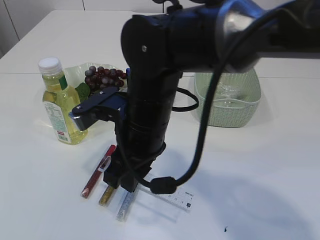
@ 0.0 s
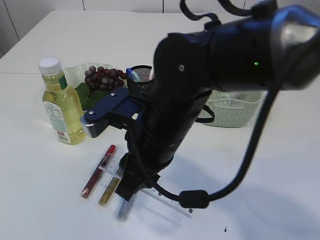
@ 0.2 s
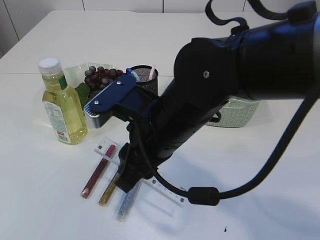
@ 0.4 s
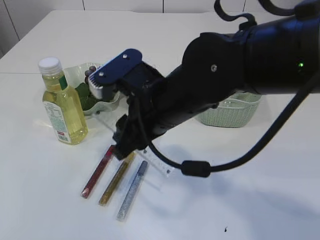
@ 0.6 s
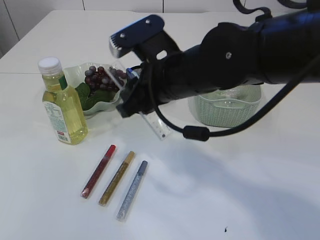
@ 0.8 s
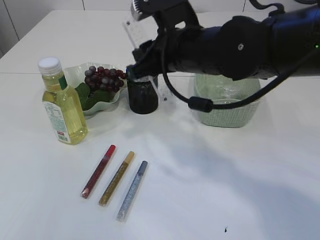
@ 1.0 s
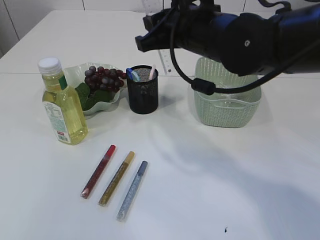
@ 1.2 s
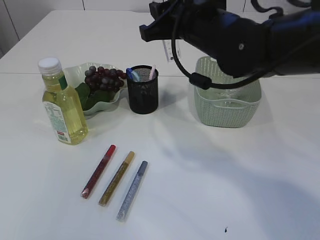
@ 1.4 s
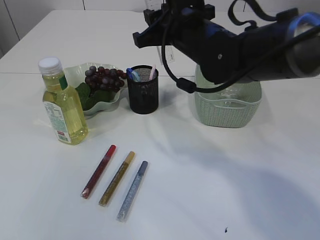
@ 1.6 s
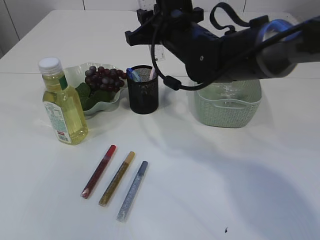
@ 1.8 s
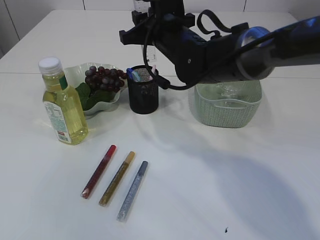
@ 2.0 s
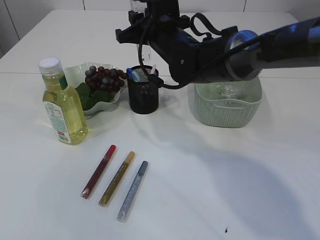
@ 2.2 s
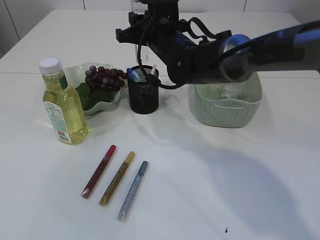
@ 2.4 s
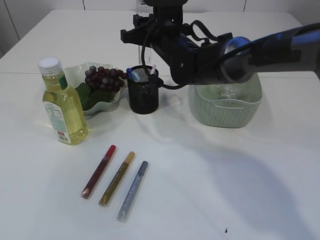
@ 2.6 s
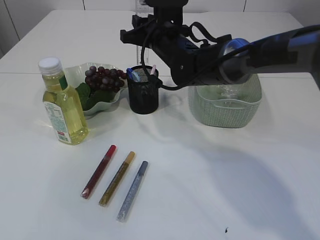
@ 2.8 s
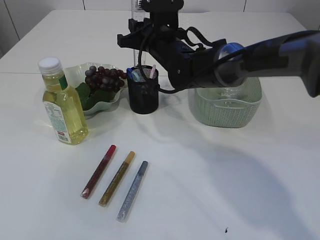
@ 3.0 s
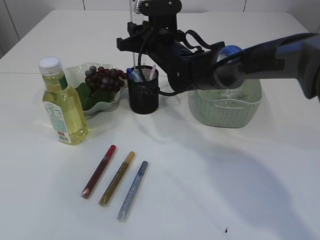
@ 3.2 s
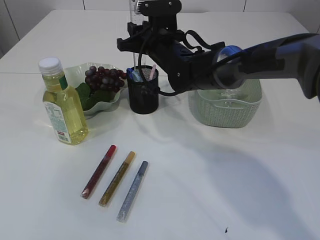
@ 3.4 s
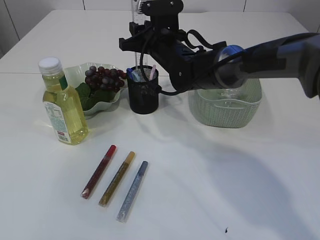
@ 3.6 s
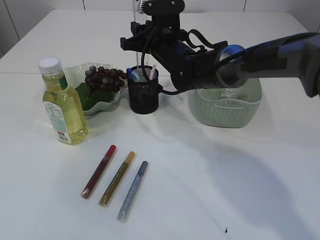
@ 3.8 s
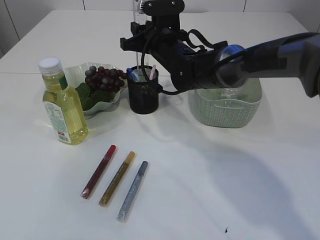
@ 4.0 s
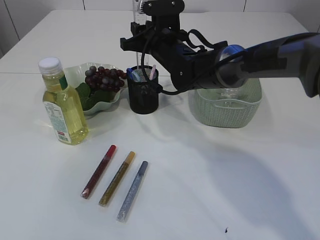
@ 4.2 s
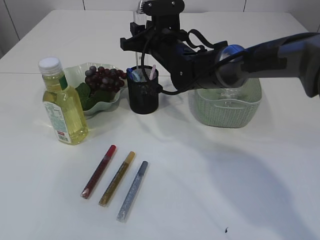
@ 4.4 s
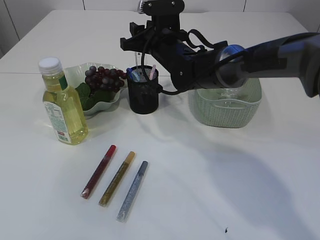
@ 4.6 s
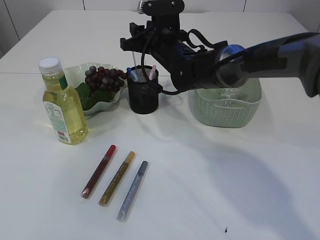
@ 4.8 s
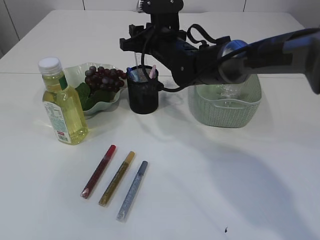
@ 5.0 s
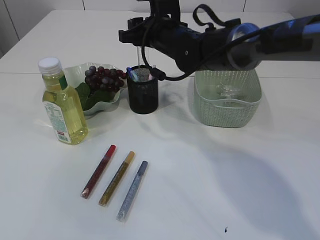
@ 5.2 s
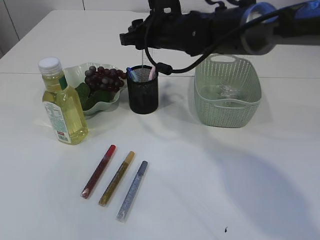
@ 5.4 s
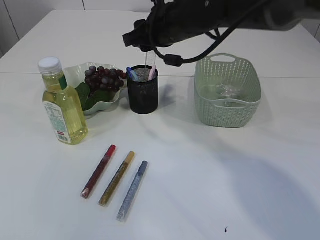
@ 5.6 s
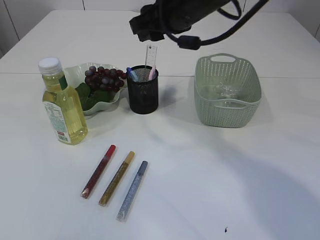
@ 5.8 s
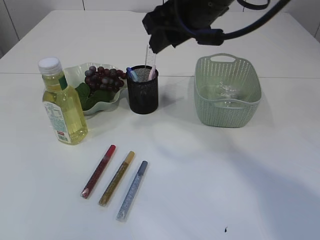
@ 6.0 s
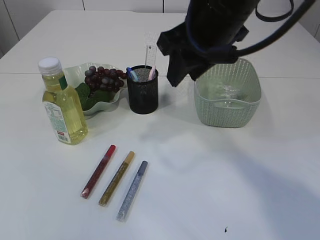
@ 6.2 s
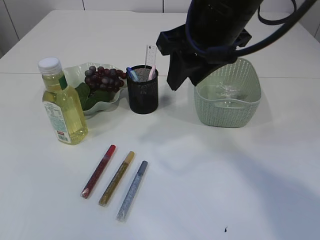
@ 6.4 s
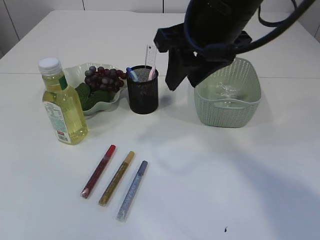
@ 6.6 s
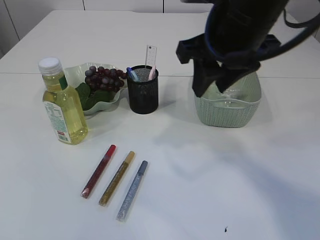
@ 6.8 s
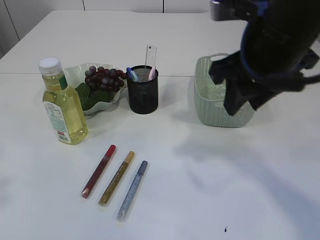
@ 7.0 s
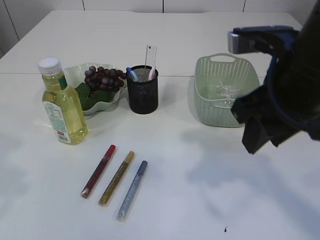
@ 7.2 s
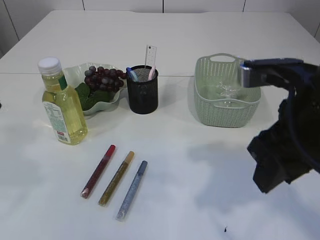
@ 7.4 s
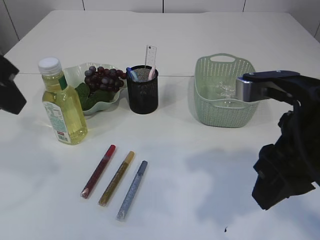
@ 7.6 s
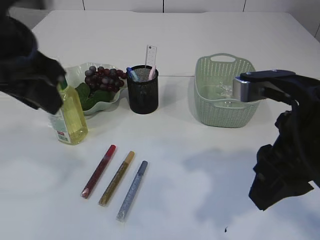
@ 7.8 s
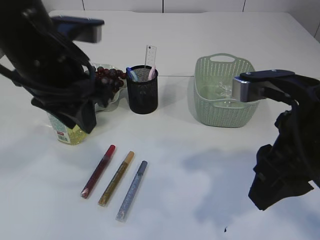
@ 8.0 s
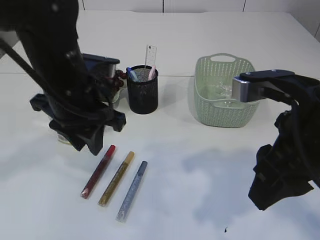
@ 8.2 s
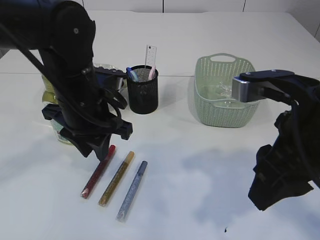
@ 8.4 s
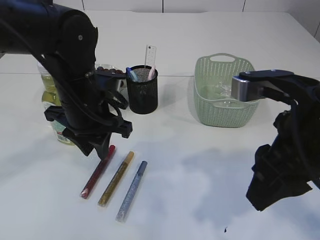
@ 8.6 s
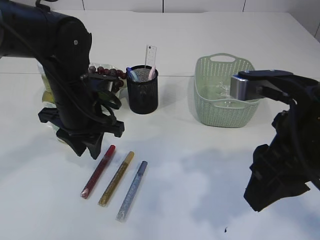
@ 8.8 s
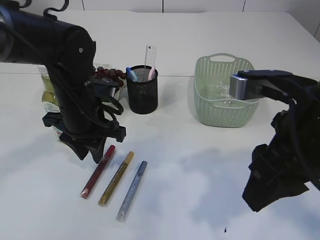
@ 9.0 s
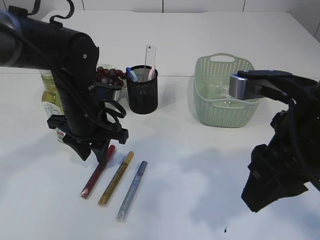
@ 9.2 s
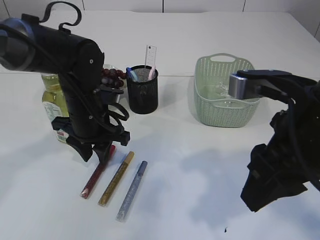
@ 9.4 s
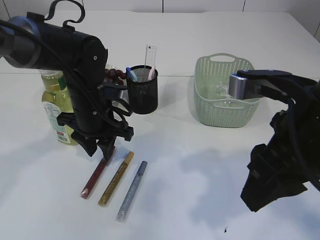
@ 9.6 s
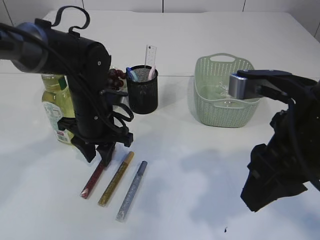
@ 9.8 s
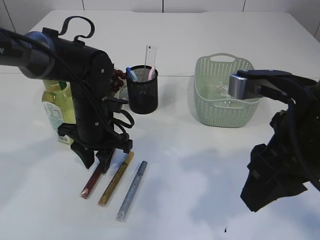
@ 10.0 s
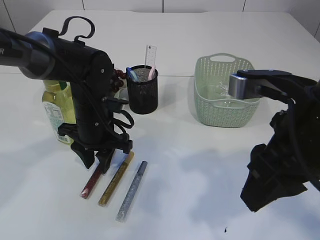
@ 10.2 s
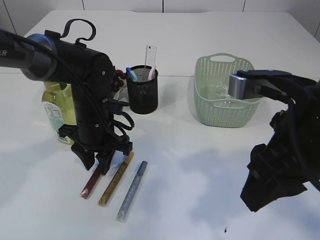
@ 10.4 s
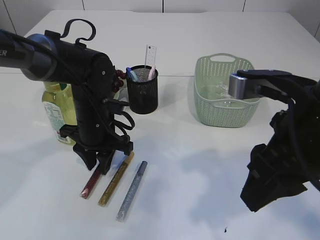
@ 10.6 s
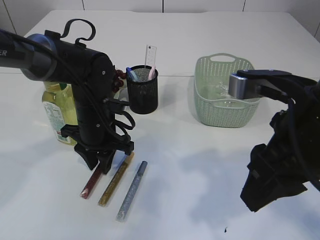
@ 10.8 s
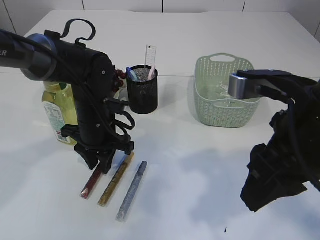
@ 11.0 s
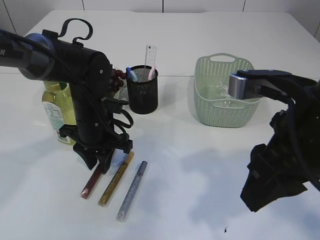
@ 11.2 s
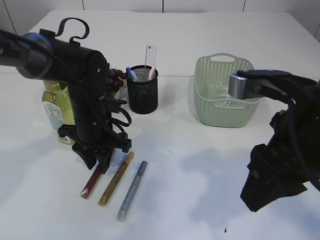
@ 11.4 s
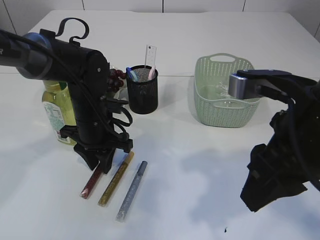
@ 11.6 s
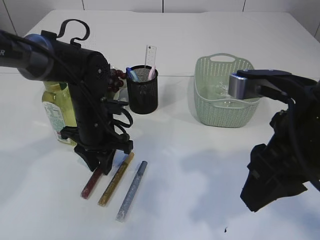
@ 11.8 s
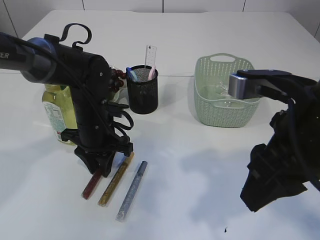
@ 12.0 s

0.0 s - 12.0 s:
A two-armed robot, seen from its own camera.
Step, 0.0 s - 5.4 s: Place the ruler into the pen holder.
0.0 s - 1.6 s: The right gripper is displaced forward, to the right and upward by some 15 cm.
1.6 s - 3.0 s: The right gripper goes some 10 cm forward and downward.
3.0 s - 4.4 s: The two grippers keep their place.
4.4 s - 6.0 s: The right gripper heads upward and backward, covering about 20 cm.
6.0 s - 7.6 s: The left gripper moves forward, to the right and downward, roughly 15 cm; the right gripper heads backward, to the right and downward, covering approximately 20 cm.
7.6 s - 9.0 s: The left gripper shifts roughly 20 cm downward, forward and to the right.
9.0 s - 10.4 s: The left gripper is displaced downward by about 5 cm.
10.4 s - 12.0 s: The two grippers keep their place.

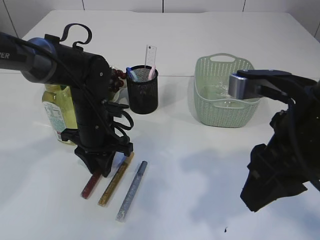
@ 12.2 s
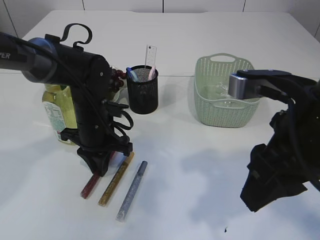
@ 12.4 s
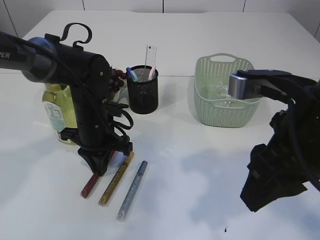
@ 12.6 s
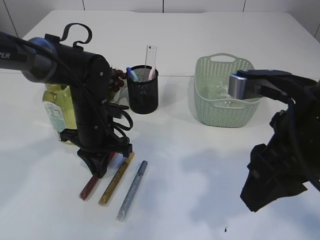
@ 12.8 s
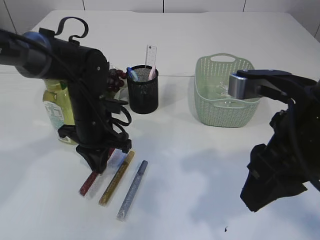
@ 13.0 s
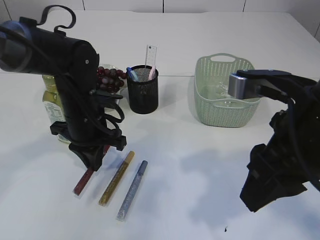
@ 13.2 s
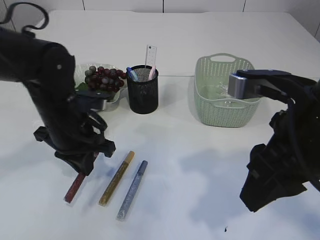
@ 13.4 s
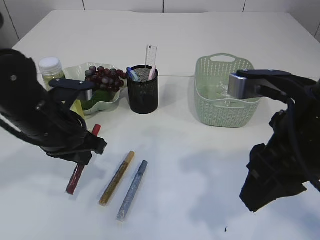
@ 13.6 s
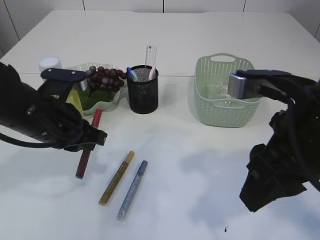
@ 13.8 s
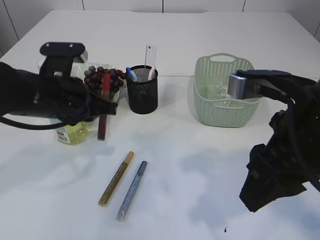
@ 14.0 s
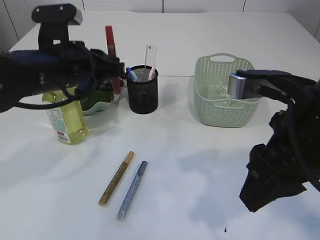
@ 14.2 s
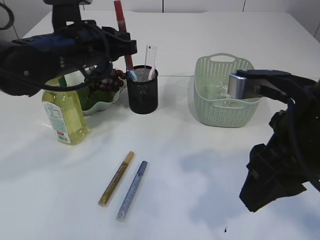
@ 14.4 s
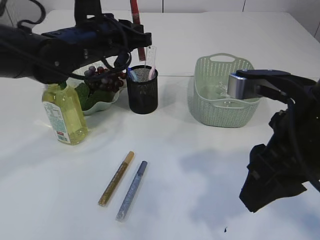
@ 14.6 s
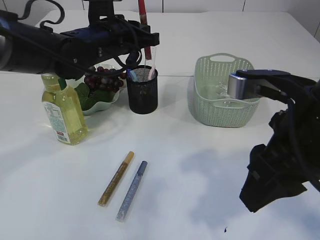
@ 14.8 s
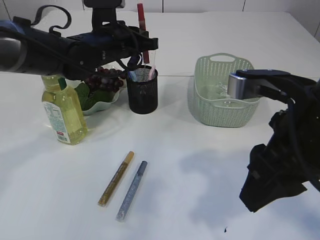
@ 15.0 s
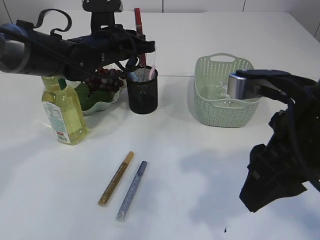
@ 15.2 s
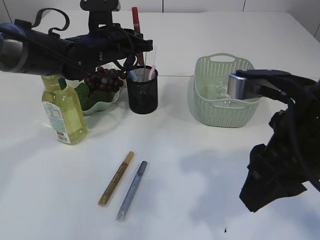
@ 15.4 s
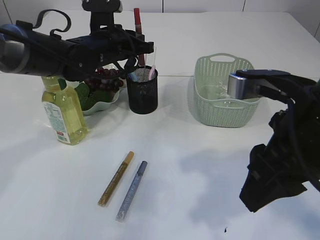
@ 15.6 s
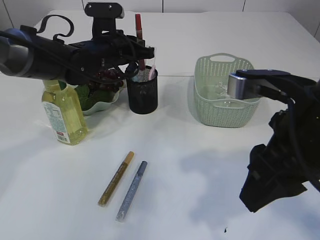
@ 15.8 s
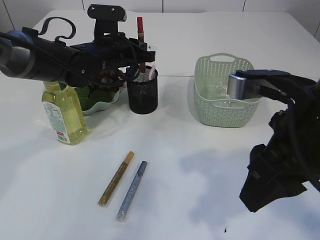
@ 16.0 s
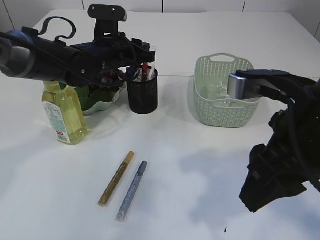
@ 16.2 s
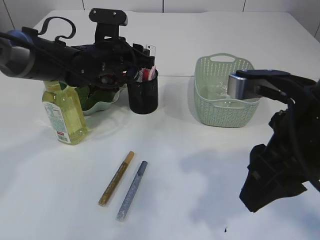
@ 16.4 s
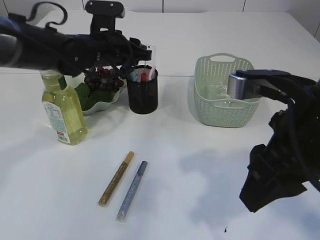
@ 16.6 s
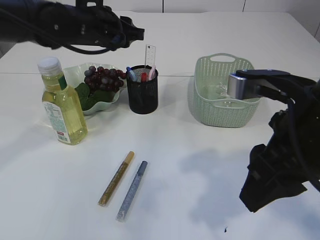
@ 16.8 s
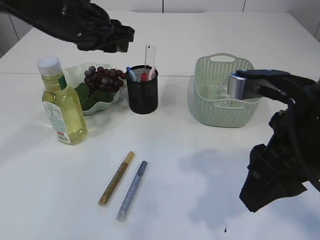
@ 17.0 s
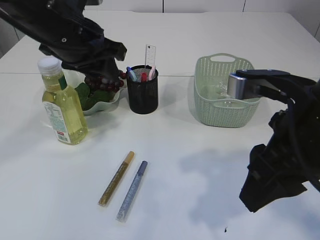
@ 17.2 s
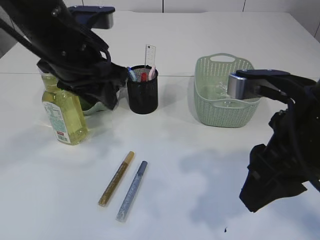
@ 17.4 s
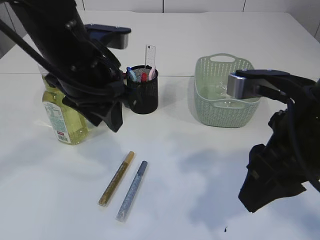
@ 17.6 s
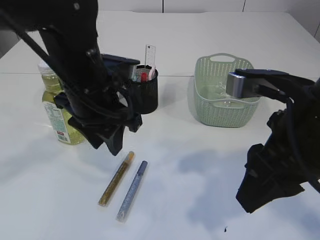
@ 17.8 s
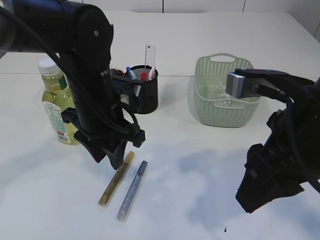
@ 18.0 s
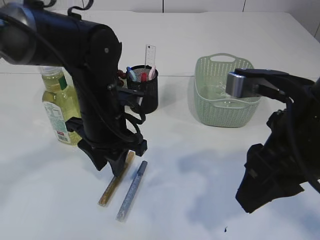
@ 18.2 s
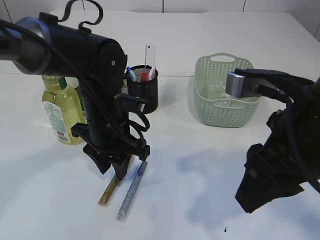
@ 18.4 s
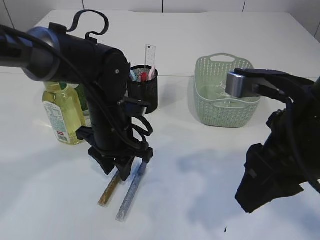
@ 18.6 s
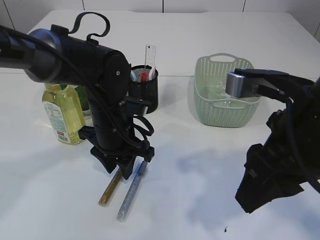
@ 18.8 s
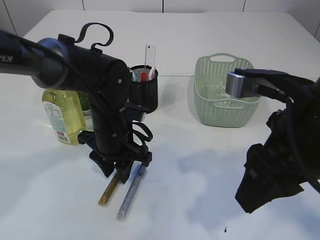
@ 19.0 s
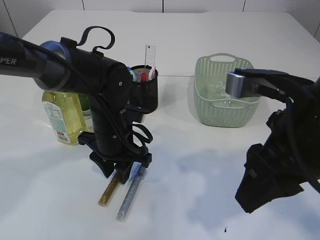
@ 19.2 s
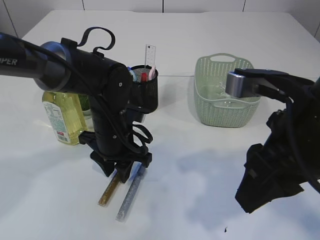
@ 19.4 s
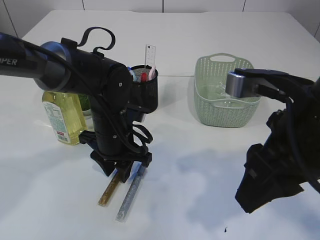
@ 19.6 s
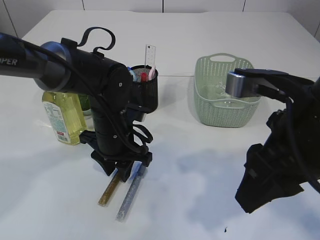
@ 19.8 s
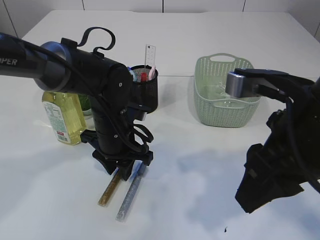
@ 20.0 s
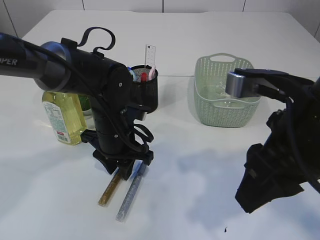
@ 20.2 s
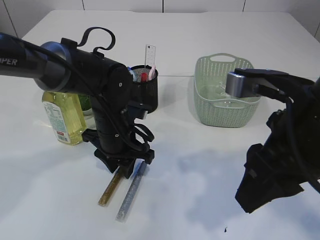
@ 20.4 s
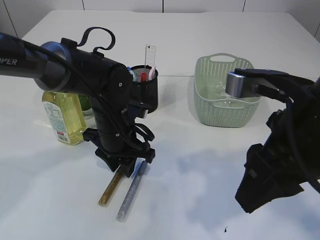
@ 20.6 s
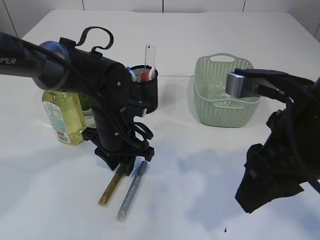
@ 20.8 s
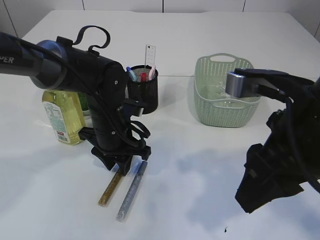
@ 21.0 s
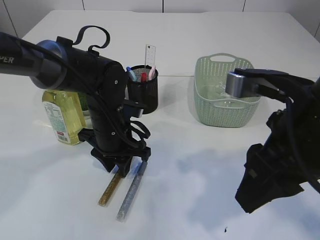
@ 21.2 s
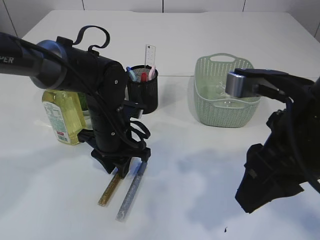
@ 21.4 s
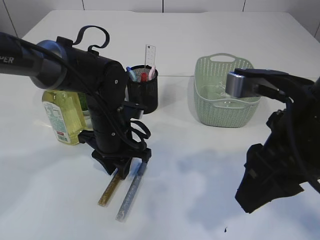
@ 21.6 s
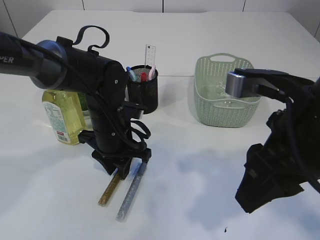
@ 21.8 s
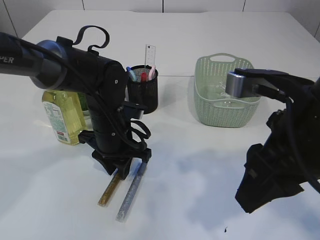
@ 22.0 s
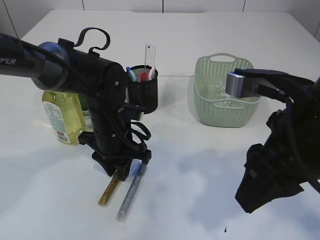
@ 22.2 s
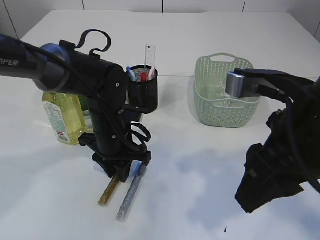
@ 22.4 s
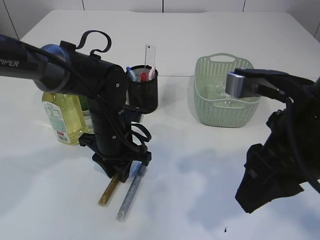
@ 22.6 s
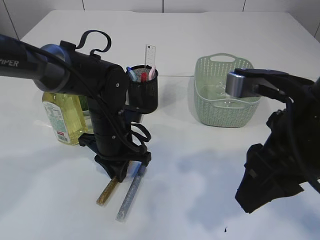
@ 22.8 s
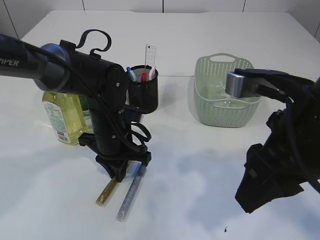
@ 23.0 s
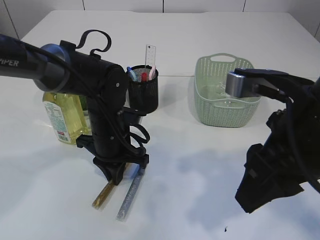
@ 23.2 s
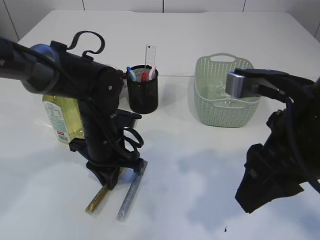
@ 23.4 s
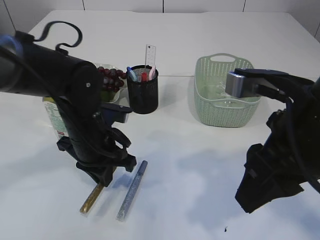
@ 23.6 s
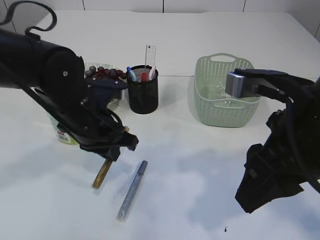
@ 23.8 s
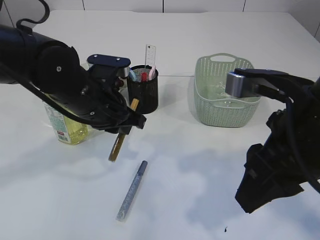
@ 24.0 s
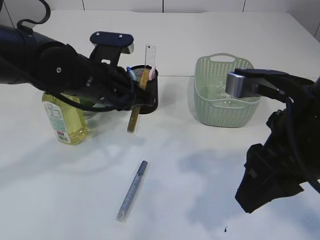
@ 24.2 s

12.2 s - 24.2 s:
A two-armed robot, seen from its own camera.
Step, 13.4 s - 16.8 s: place the red glue into the pen holder.
Step, 17.0 s - 23.8 s: pick up the yellow glue.
12.2 s - 13.8 s: The left gripper is displaced backward and upward by some 10 cm, and closes its fingers.
13.8 s - 15.2 s: The left gripper moves forward, some 15 cm.
15.2 s - 16.6 s: The left gripper opens up.
16.6 s - 18.2 s: The left gripper goes about 15 cm backward.
18.2 s - 19.8 s: The left gripper moves downward, approximately 5 cm.
19.8 s - 22.6 s: The two grippers keep their place.
22.6 s - 24.2 s: The left gripper moves upward, about 10 cm, and closes.
